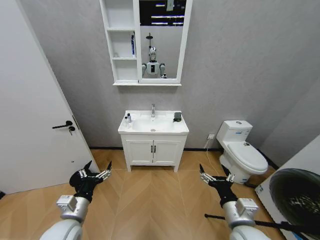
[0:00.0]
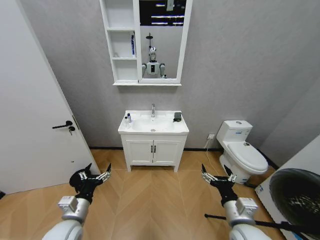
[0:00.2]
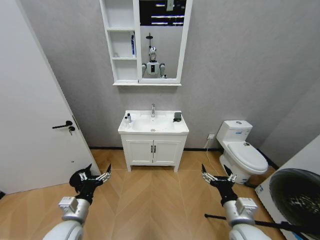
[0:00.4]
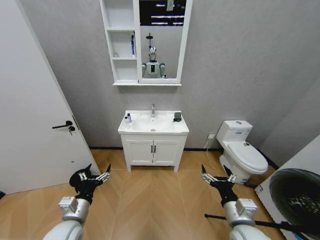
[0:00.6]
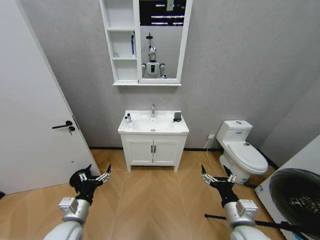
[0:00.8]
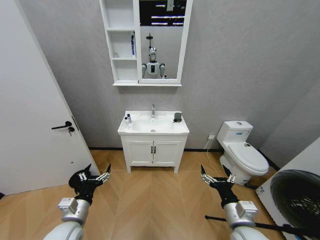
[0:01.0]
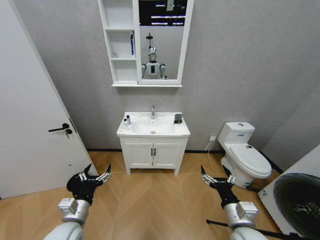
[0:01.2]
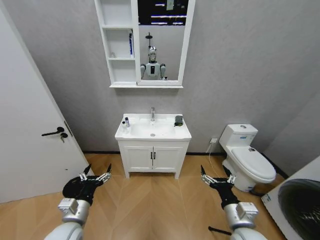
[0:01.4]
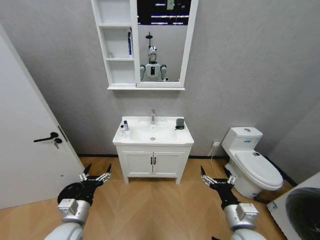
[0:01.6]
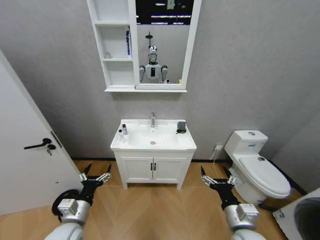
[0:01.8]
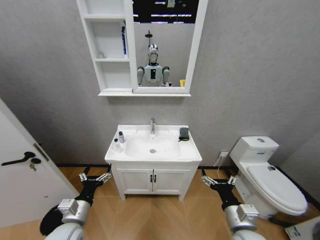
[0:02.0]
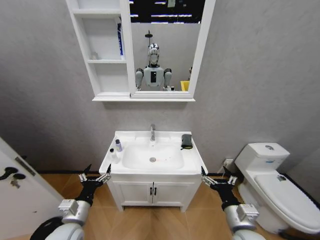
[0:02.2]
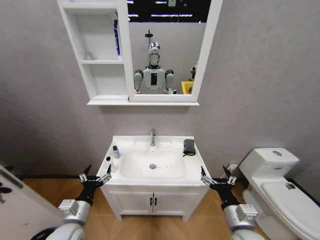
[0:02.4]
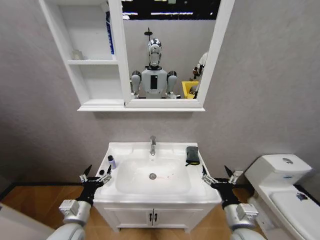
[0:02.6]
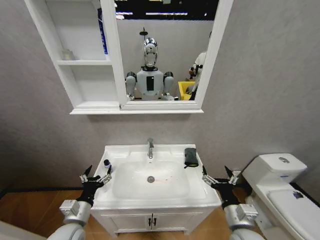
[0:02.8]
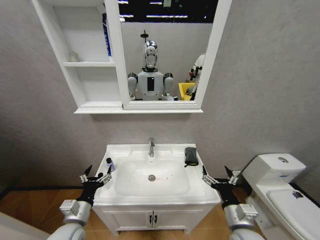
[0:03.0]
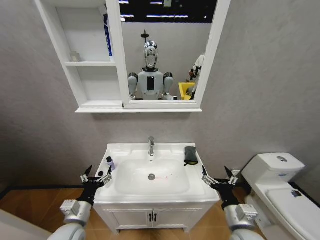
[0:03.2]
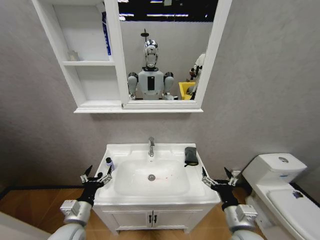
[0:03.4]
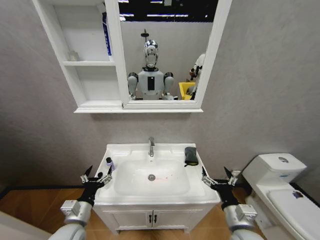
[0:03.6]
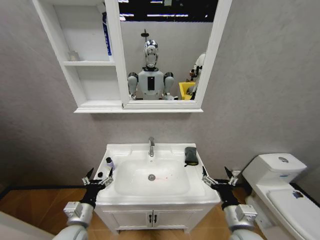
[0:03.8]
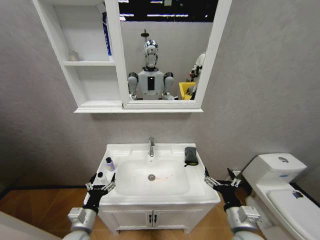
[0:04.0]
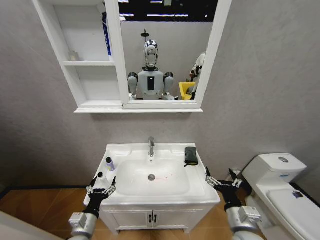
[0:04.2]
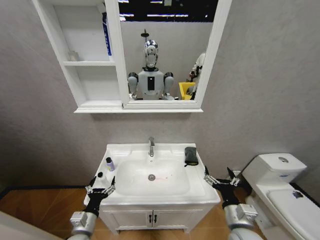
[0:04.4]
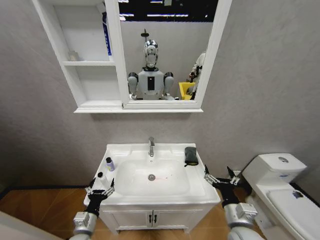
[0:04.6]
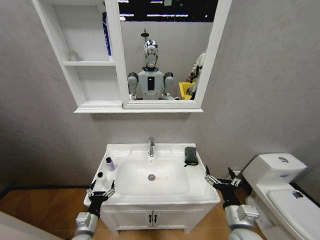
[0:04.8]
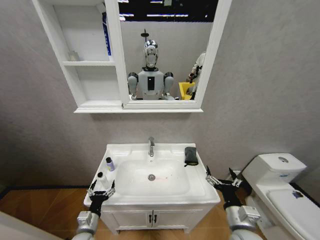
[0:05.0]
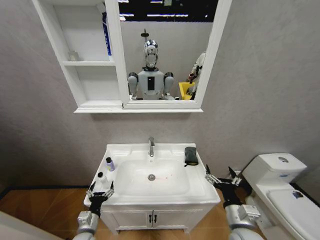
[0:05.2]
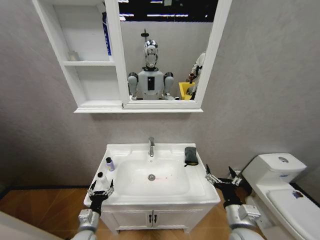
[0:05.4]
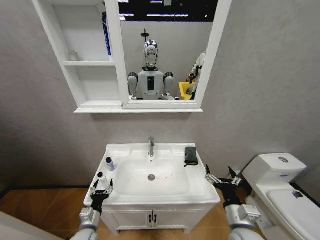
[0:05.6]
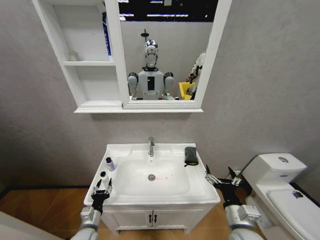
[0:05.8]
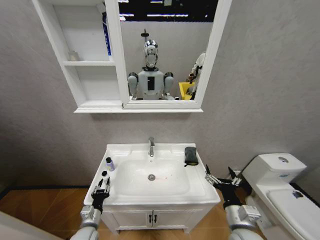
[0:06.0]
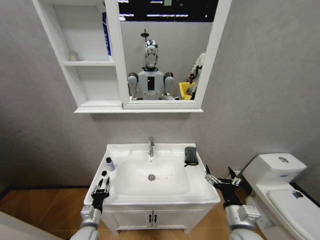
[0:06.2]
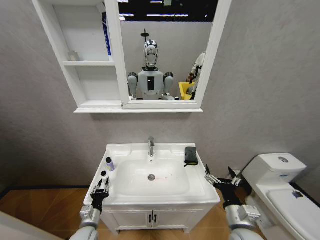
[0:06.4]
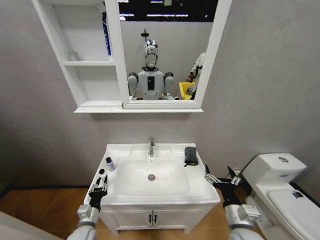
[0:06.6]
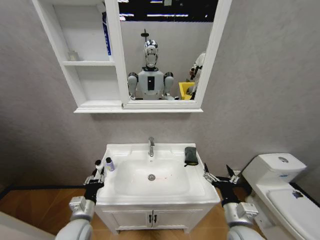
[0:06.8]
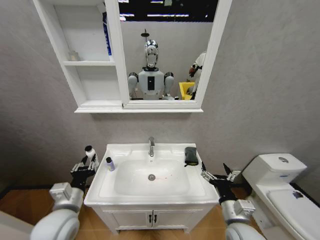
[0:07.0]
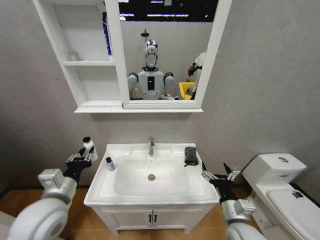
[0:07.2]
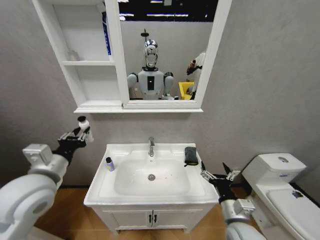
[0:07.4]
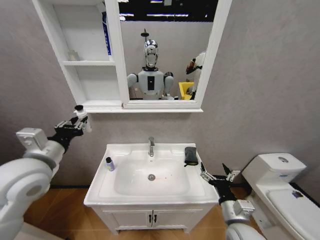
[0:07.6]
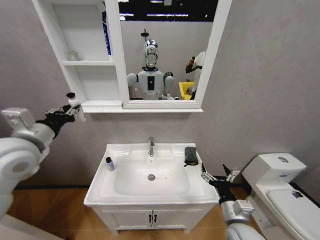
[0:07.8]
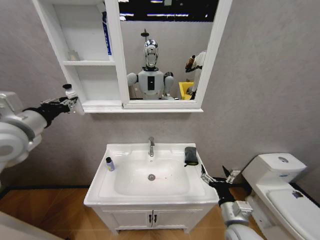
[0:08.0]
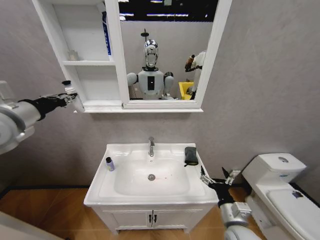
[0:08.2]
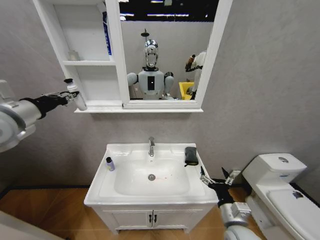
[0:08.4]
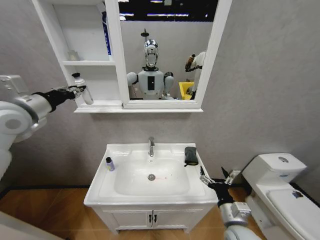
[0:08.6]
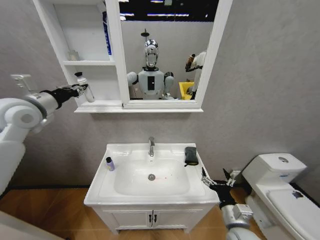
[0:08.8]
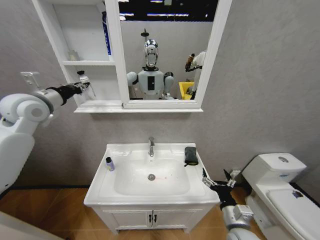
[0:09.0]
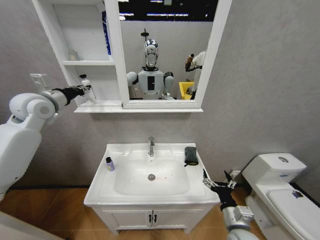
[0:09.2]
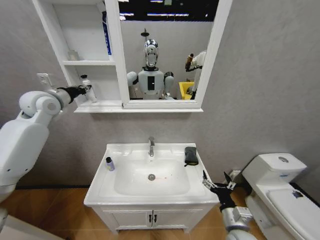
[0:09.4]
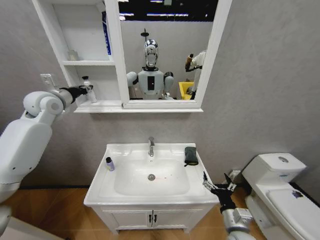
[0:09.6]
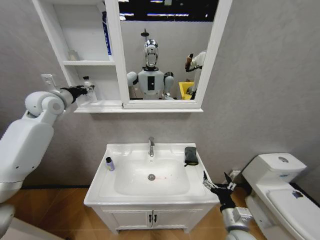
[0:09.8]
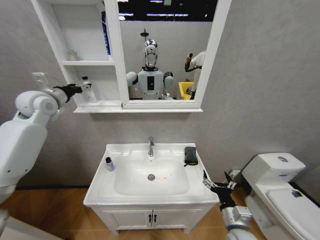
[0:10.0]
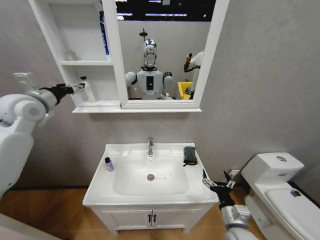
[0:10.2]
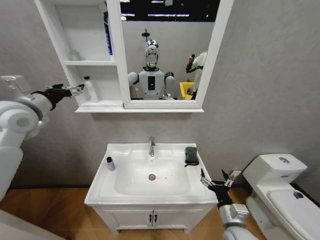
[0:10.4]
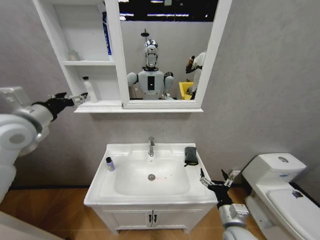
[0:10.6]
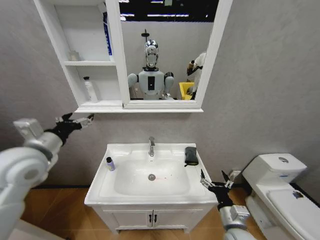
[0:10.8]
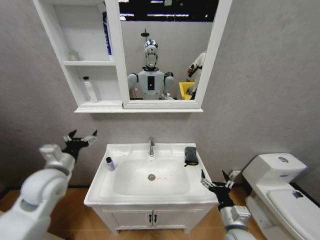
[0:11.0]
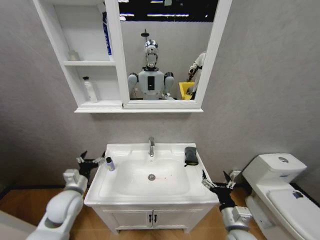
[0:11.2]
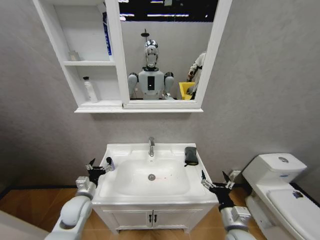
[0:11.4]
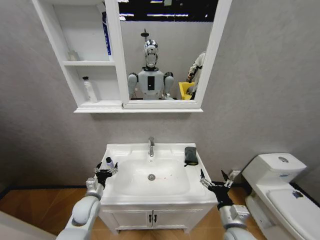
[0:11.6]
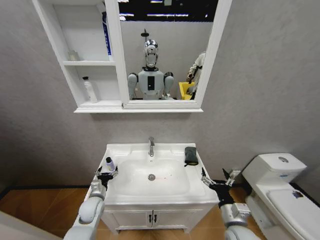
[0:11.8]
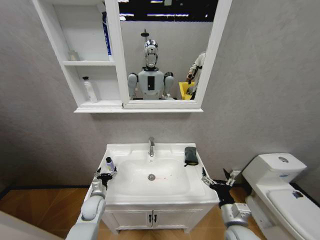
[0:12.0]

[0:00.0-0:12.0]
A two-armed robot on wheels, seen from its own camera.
Task of the whole recording: Move facial cleanser and shampoo from washbasin to cabinet, then wipe washbasin with towel.
0:03.0 to 0:04.4: The left gripper is displaced downward by roughly 5 cm.
0:04.4 to 0:06.0: The left gripper shifts roughly 5 cm downward, and closes its fingers.
0:06.0 to 0:07.6: The left gripper is displaced upward by approximately 35 cm.
0:07.6 to 0:09.0: The left gripper moves forward, upward and to the left, about 20 cm.
0:09.0 to 0:10.4: The left gripper opens up.
0:10.4 to 0:12.0: The left gripper moves downward, approximately 40 cm.

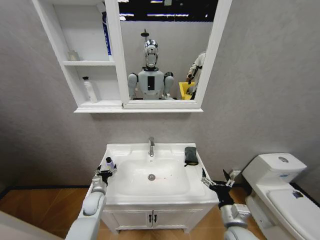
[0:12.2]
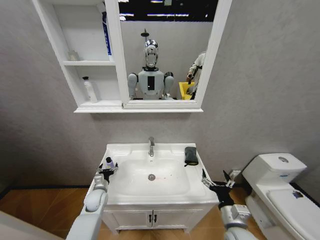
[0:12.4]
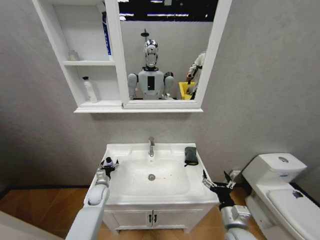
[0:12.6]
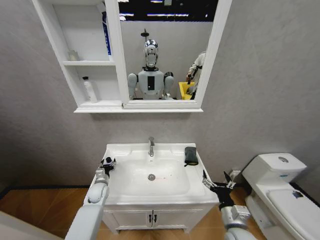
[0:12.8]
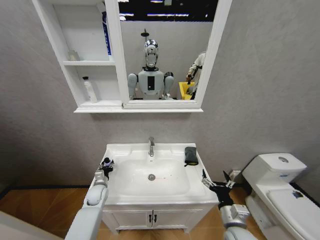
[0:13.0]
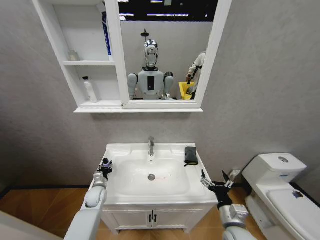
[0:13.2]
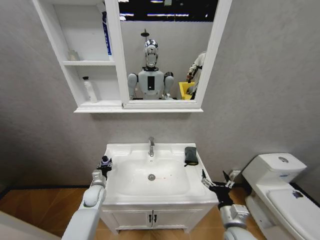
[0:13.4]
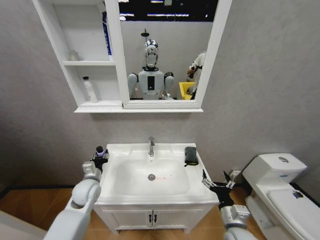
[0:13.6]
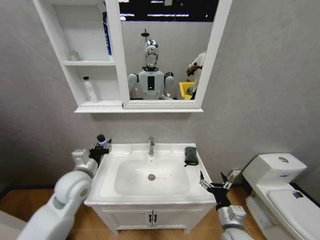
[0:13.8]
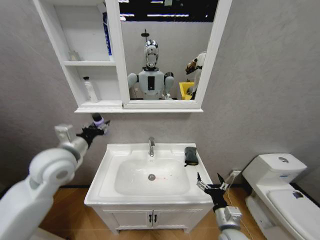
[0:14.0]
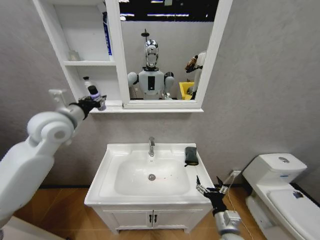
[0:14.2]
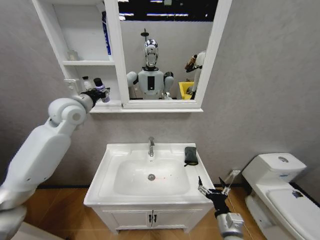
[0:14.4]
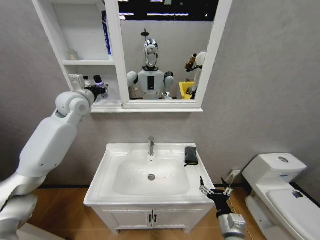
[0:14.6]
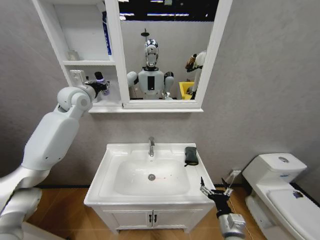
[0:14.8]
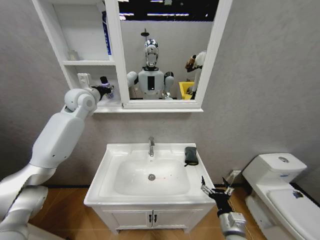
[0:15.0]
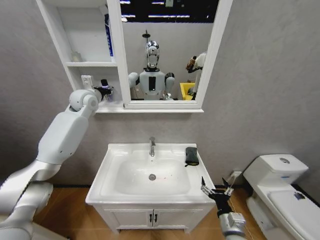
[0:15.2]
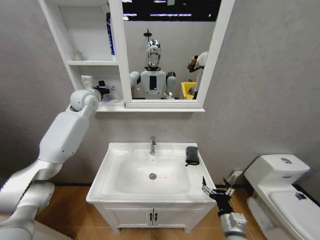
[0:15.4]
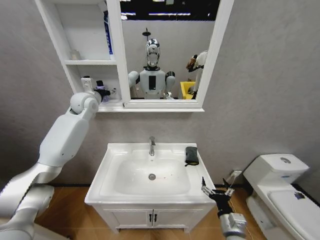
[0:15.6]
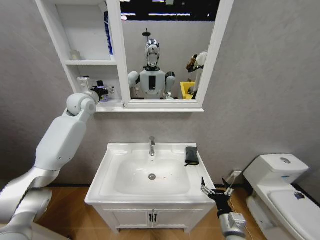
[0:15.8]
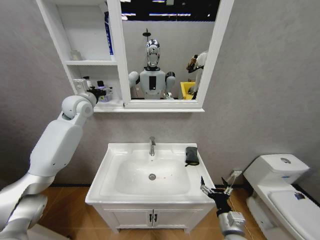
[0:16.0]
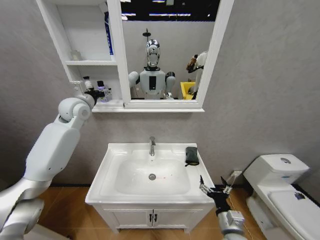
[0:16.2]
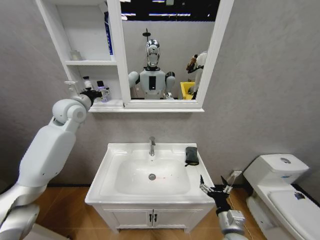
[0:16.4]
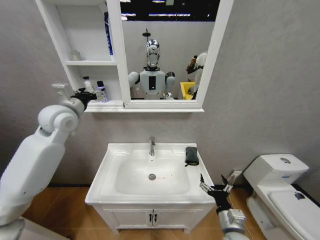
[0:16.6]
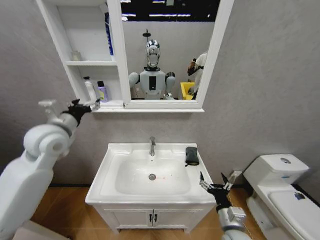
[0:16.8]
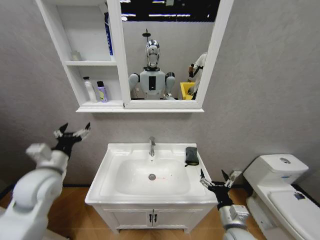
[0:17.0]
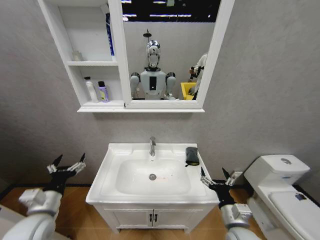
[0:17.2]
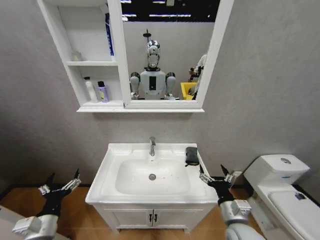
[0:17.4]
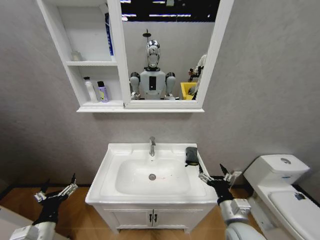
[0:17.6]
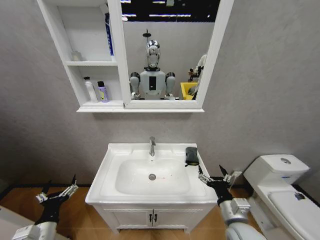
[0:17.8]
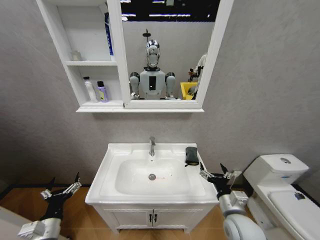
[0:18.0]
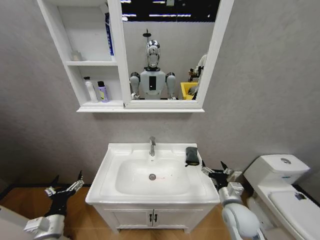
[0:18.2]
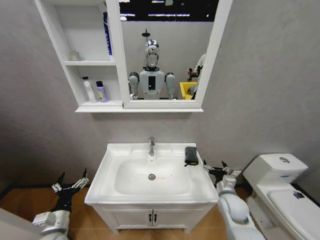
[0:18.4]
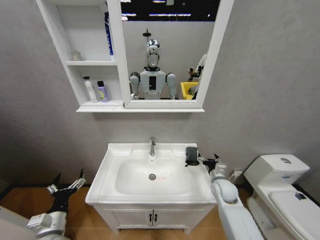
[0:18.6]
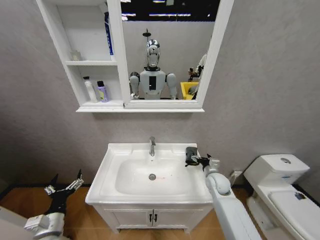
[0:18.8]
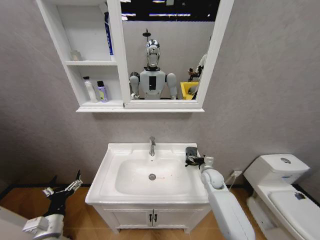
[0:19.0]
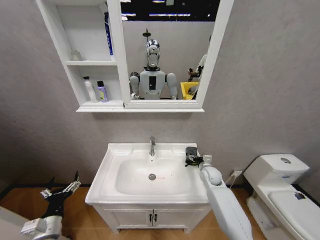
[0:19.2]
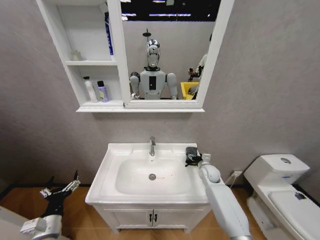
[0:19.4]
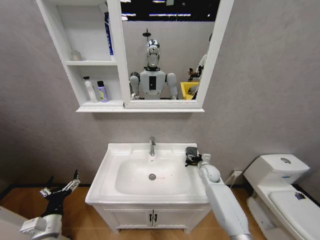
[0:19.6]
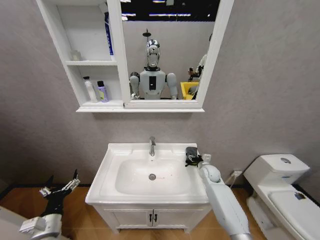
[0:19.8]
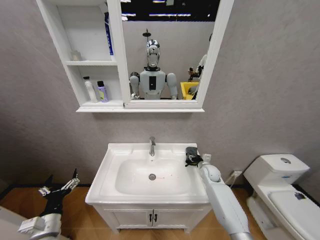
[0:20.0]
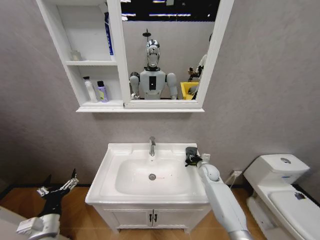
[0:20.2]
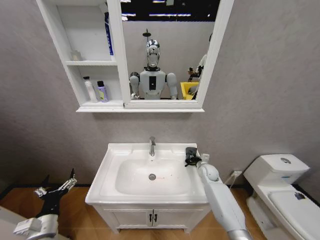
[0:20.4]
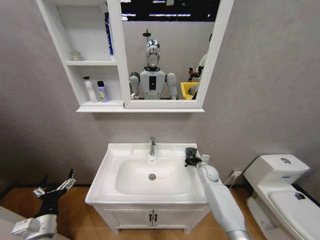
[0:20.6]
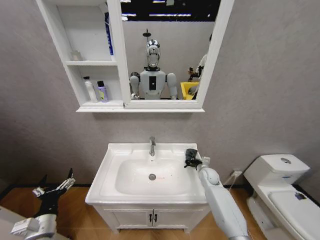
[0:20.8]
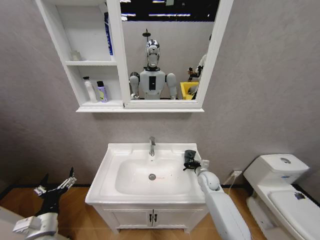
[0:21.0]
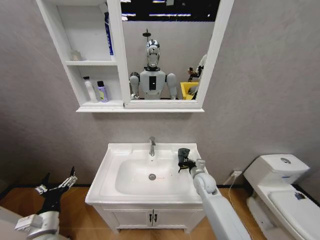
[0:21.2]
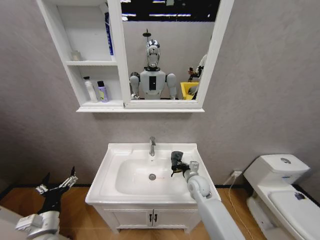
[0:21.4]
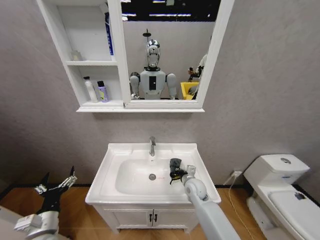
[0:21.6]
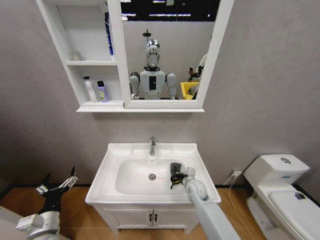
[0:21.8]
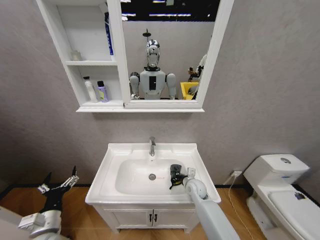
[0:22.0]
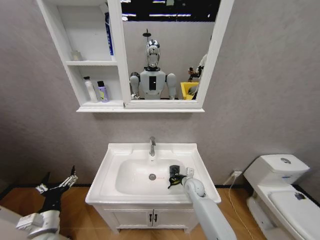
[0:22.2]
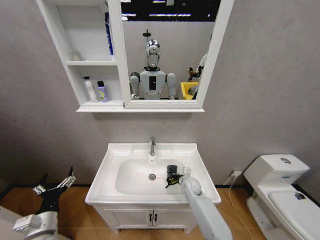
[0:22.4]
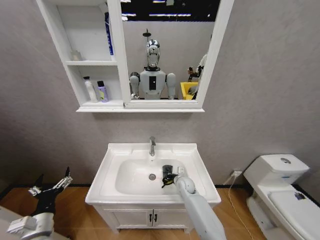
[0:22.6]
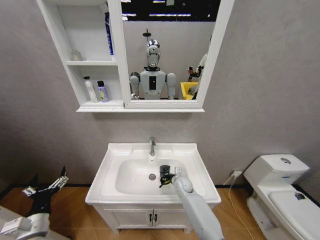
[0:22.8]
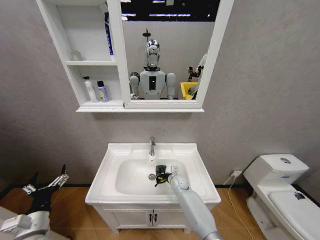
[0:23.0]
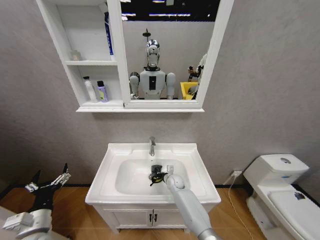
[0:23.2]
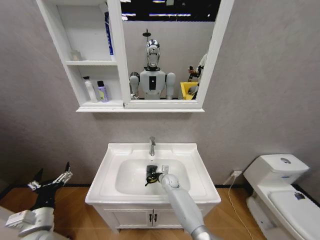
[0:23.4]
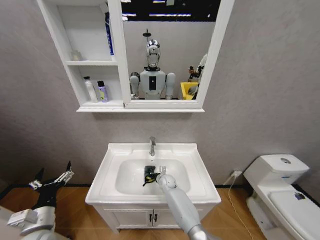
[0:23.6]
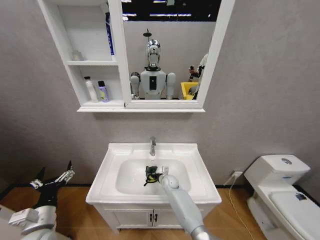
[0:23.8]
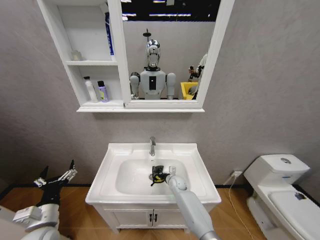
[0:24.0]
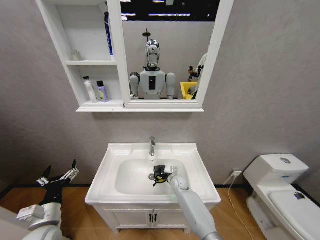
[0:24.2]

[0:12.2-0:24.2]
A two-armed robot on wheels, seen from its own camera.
Task of the whole recording: Move facial cleanser and shampoo from washbasin to cabinet, then wipe washbasin with towel.
0:12.2 to 0:13.8: The left gripper moves upward, some 25 cm, and closes.
0:13.8 to 0:15.2: The left gripper travels forward and upward by about 30 cm.
0:15.2 to 0:16.6: The left gripper heads backward, covering about 10 cm, and opens its fingers.
0:16.6 to 0:18.2: The left gripper shifts approximately 40 cm downward and backward; the right gripper shifts approximately 5 cm forward.
0:18.2 to 0:19.8: The right gripper heads forward, covering about 25 cm.
0:19.8 to 0:21.2: The right gripper is displaced to the left and backward by about 10 cm, and closes up.
0:21.2 to 0:22.6: The right gripper heads downward and to the left, covering about 10 cm.
0:22.6 to 0:24.2: The right gripper reaches about 10 cm to the left, then returns.
